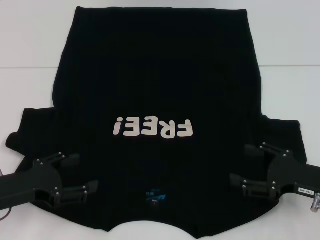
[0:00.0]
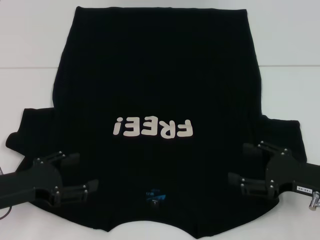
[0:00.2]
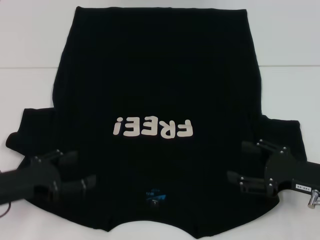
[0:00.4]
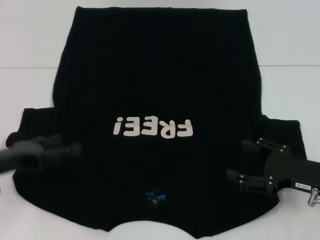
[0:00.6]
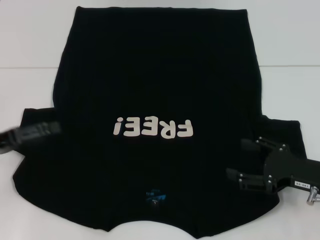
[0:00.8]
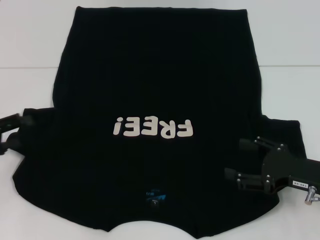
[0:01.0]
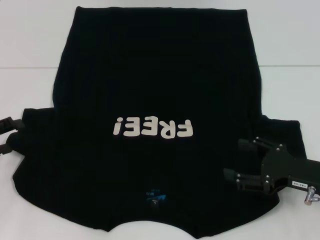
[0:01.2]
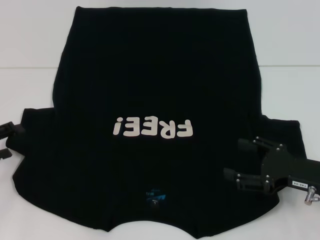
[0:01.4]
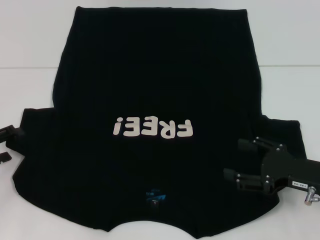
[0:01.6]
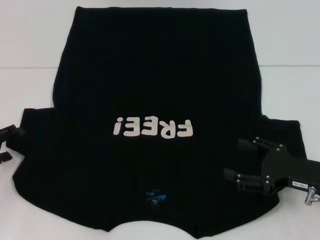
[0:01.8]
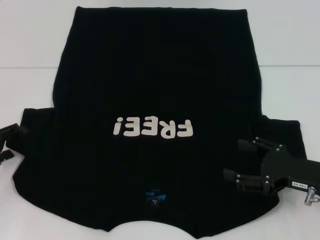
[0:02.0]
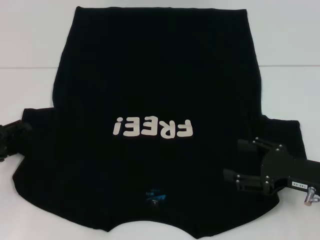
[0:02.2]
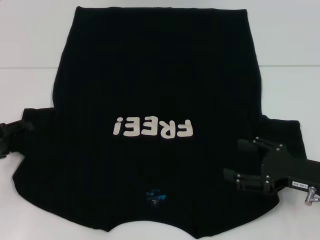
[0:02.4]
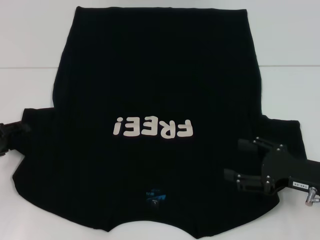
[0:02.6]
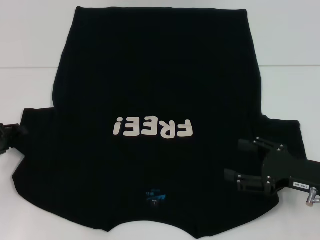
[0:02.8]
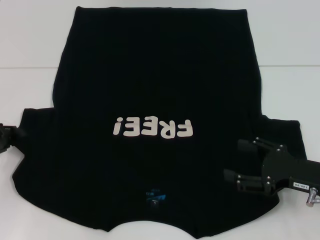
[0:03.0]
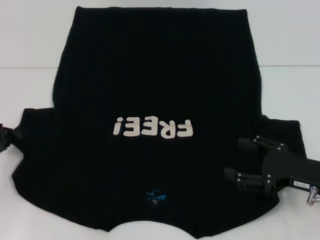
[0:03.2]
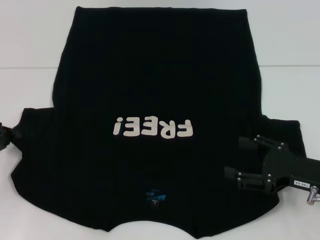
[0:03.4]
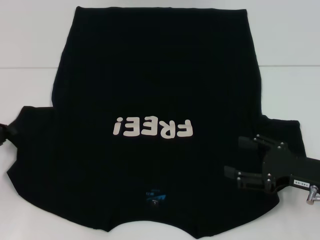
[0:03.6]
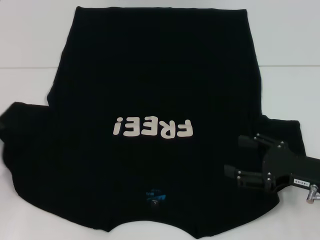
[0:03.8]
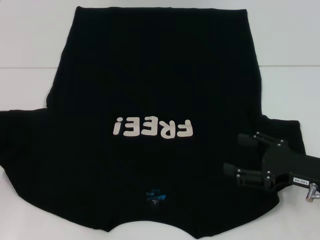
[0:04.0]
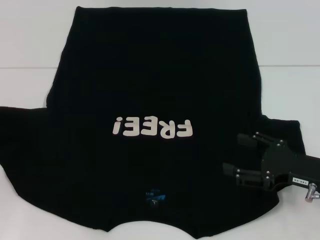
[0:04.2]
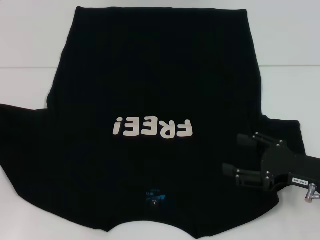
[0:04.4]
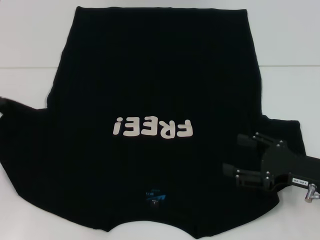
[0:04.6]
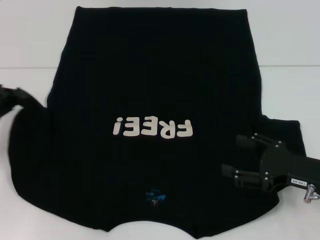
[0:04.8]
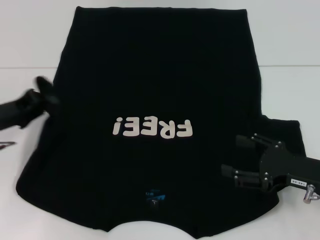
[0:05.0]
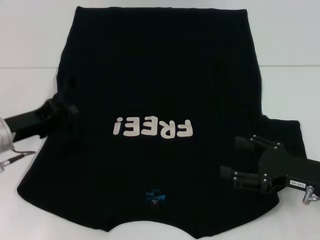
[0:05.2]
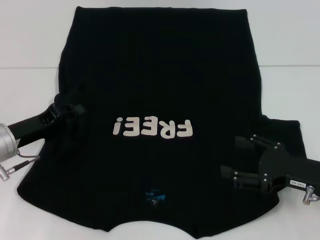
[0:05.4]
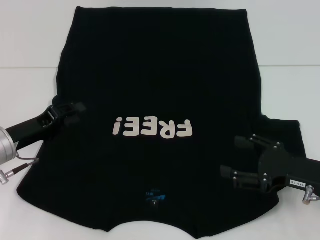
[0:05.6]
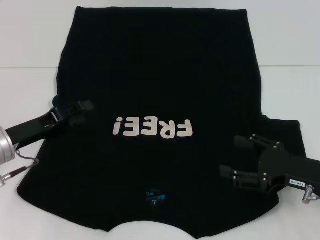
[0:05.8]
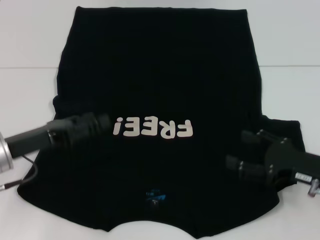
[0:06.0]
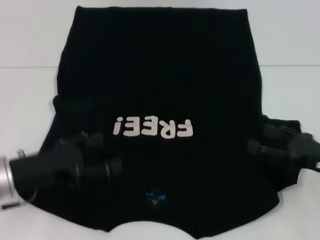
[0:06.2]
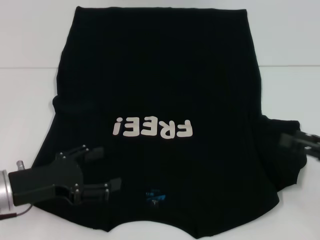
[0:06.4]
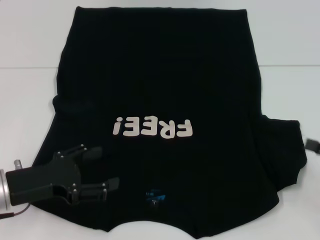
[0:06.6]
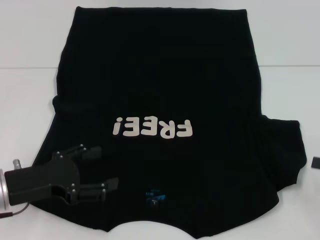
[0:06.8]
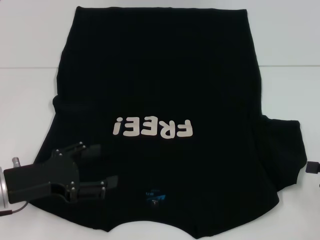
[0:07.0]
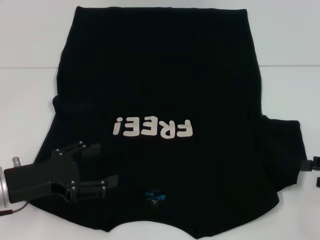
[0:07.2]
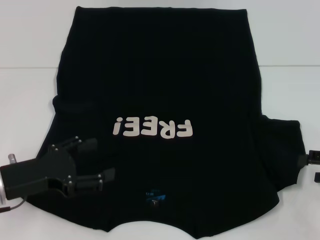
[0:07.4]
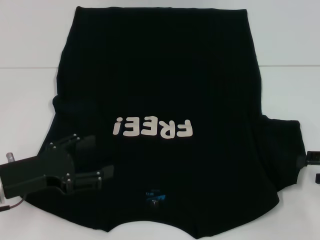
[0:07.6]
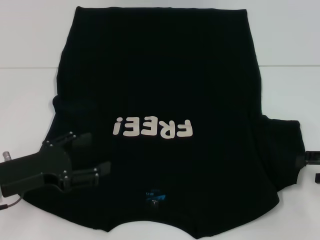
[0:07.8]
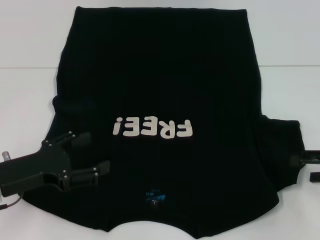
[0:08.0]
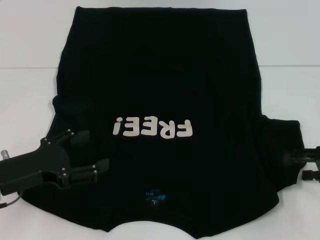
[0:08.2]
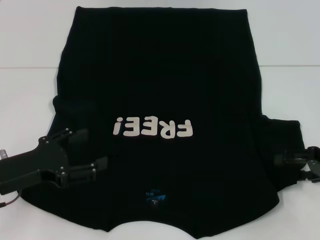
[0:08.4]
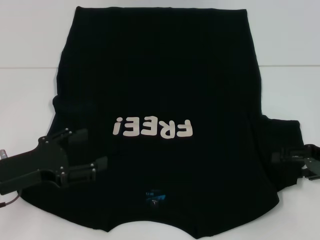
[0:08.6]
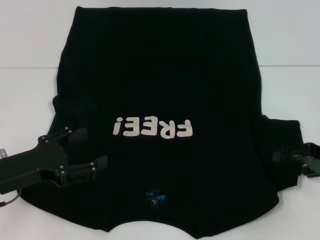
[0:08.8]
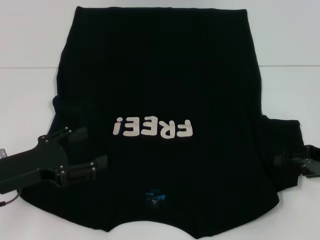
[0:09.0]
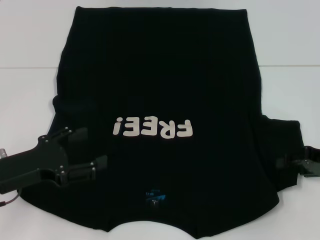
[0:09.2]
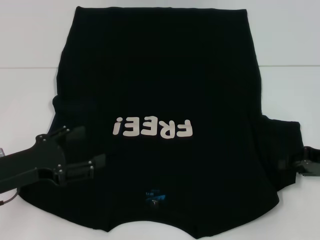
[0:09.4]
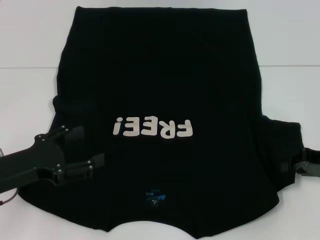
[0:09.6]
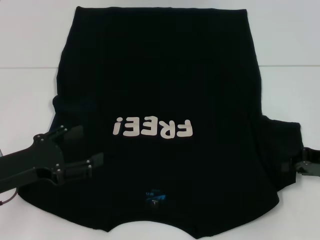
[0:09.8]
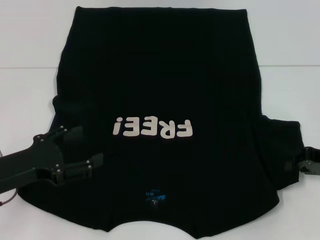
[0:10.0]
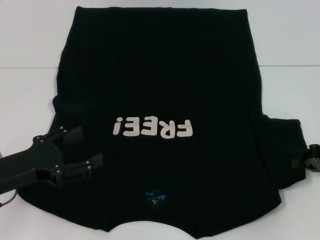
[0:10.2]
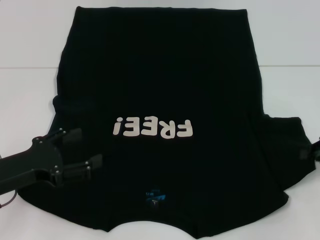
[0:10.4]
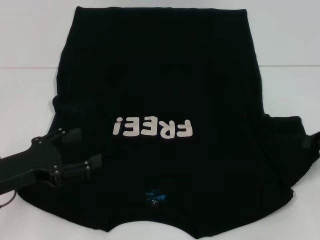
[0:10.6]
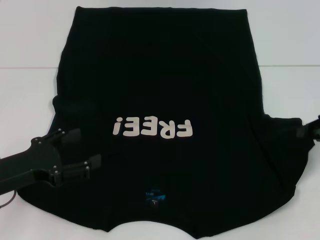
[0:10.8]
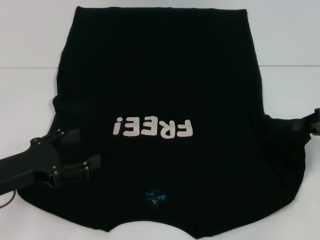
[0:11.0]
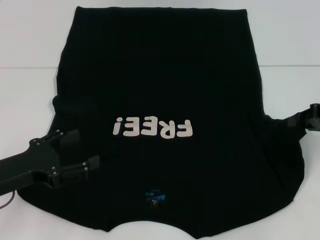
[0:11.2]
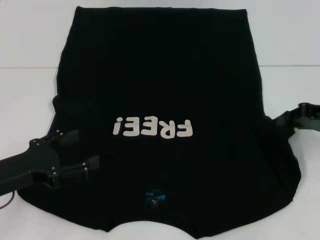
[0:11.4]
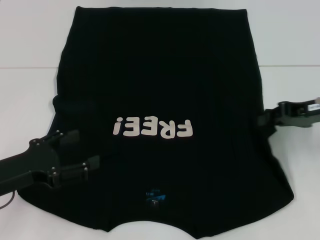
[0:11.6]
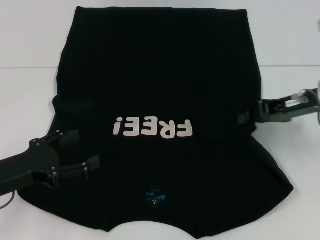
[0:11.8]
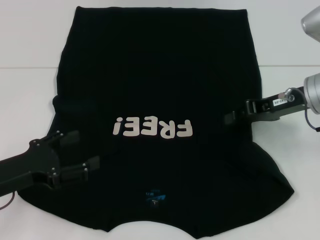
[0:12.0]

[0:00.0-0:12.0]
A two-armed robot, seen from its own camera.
Step, 0:00.0 to 0:05.4: Fold the bottom left sleeve with your left hand.
0:00.0 to 0:01.6: The left gripper heads to the left, covering approximately 10 cm.
0:03.0 to 0:04.4: The left gripper closes.
0:04.4 to 0:06.0: The left gripper travels to the right by approximately 10 cm, and opens.
0:06.0 to 0:07.6: The left gripper opens up. Meanwhile the right gripper moves to the right, some 10 cm.
0:07.6 to 0:09.0: There are only small adjustments of the grippers.
0:09.0 to 0:10.4: The right gripper closes.
0:10.4 to 0:12.0: The right gripper goes some 15 cm to the left, forward and upward.

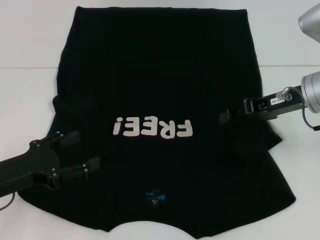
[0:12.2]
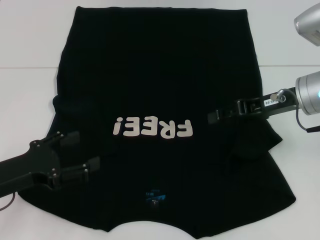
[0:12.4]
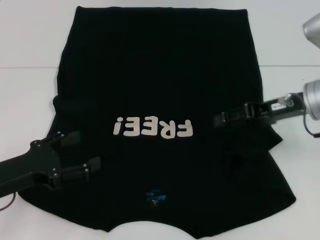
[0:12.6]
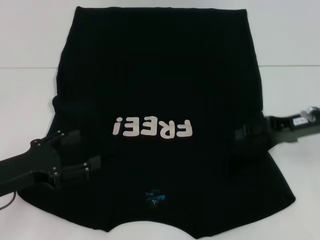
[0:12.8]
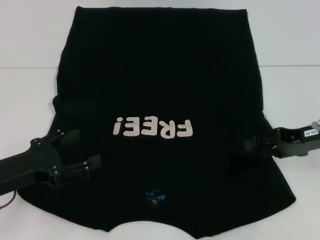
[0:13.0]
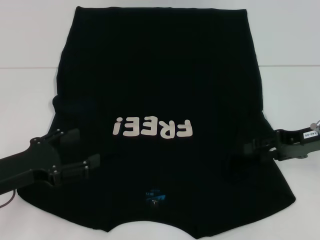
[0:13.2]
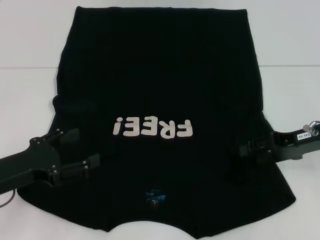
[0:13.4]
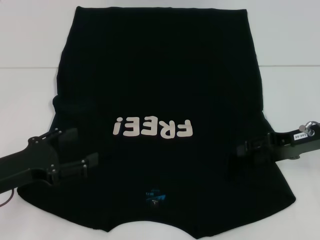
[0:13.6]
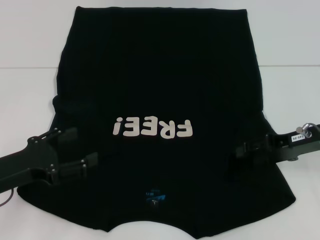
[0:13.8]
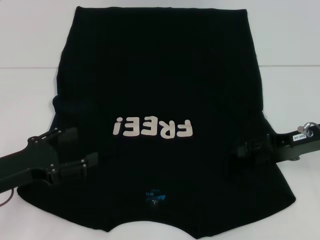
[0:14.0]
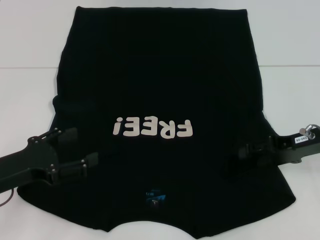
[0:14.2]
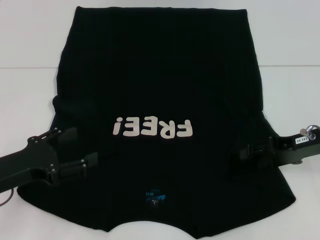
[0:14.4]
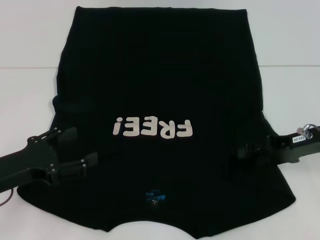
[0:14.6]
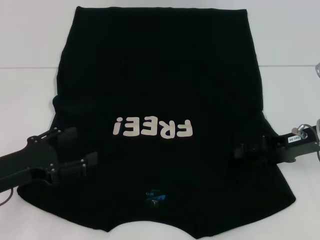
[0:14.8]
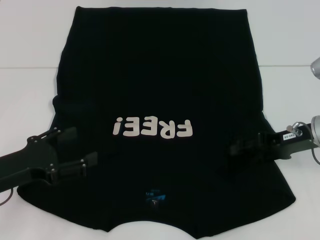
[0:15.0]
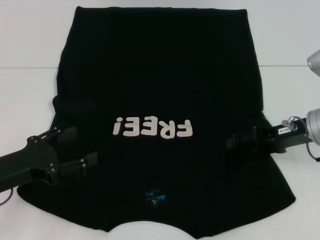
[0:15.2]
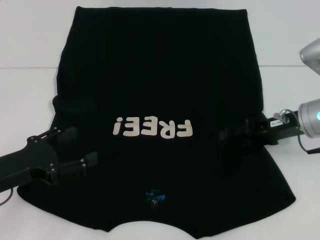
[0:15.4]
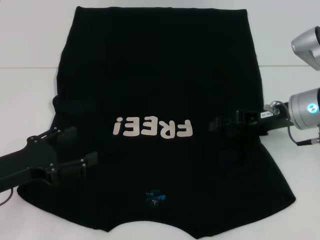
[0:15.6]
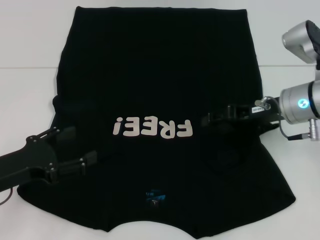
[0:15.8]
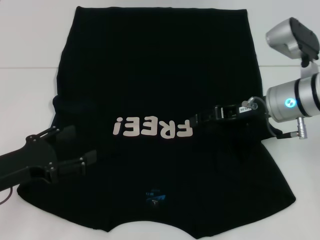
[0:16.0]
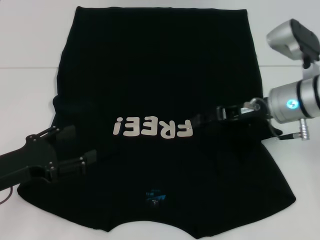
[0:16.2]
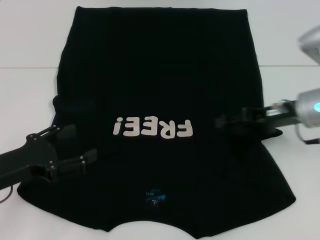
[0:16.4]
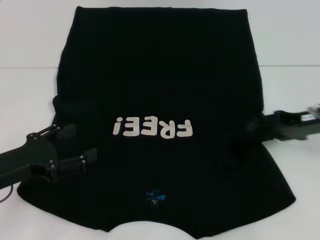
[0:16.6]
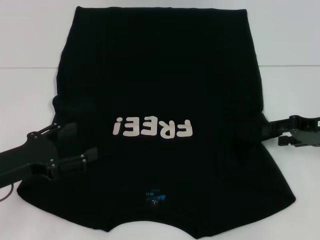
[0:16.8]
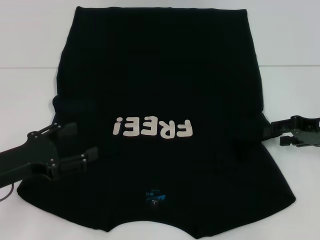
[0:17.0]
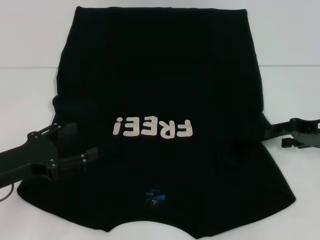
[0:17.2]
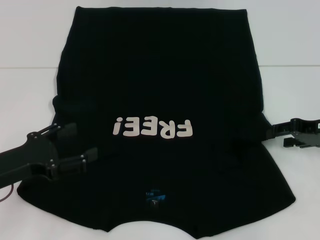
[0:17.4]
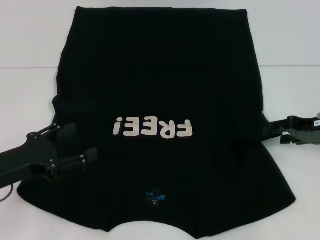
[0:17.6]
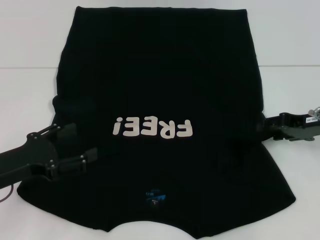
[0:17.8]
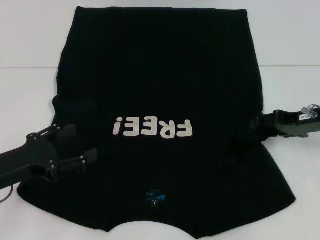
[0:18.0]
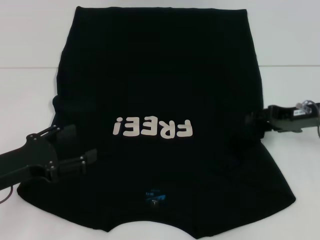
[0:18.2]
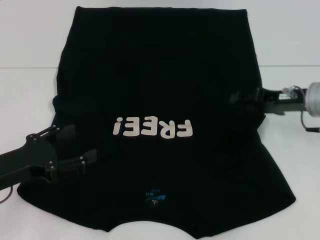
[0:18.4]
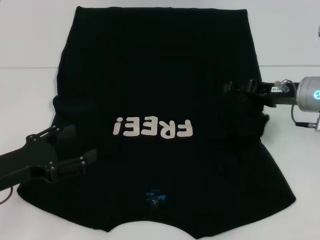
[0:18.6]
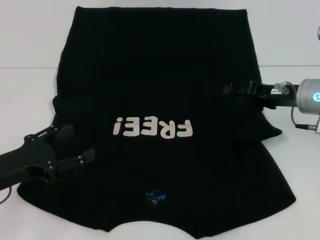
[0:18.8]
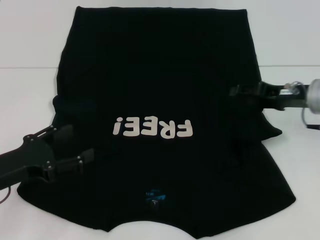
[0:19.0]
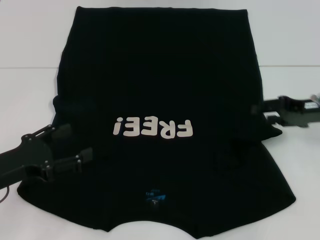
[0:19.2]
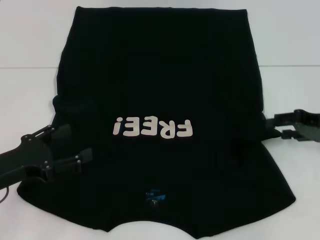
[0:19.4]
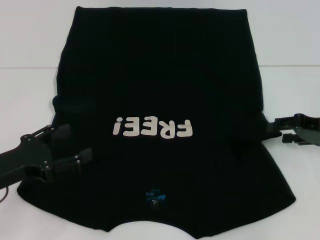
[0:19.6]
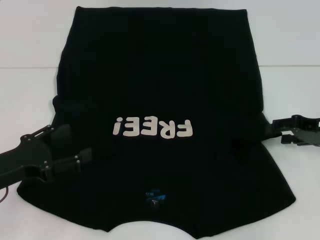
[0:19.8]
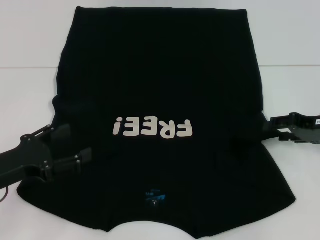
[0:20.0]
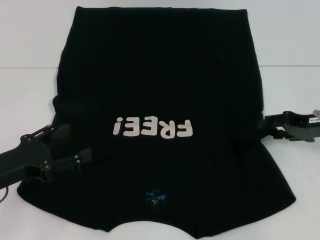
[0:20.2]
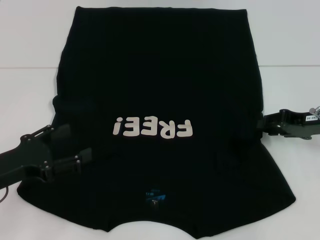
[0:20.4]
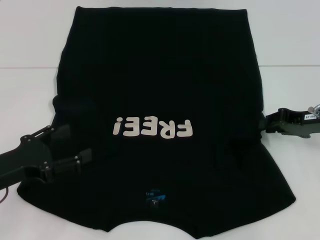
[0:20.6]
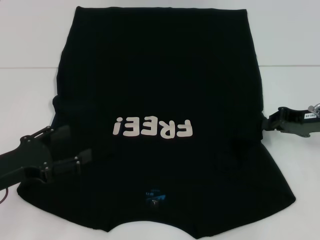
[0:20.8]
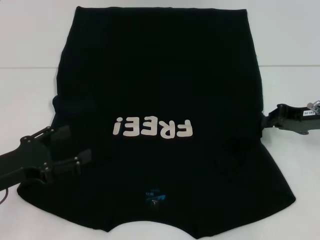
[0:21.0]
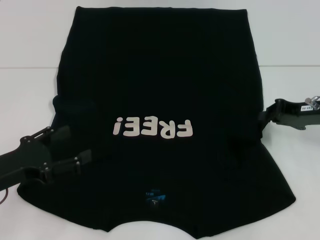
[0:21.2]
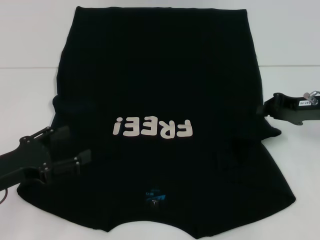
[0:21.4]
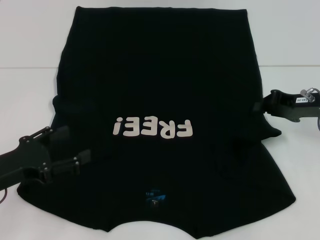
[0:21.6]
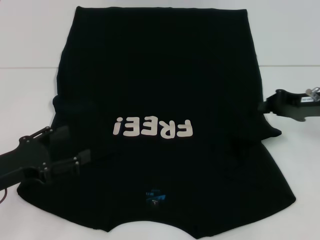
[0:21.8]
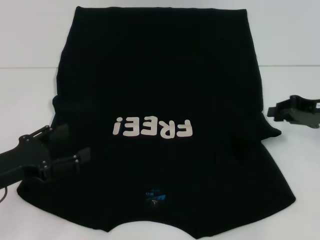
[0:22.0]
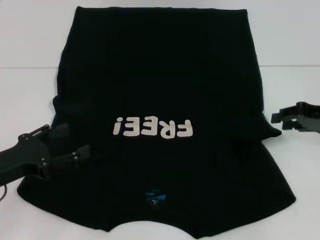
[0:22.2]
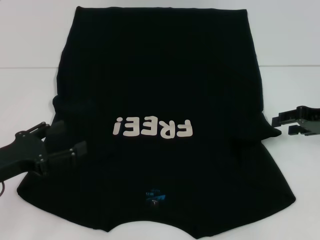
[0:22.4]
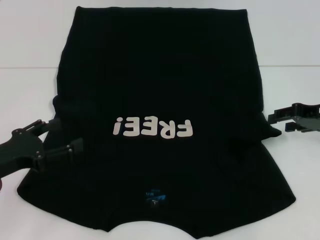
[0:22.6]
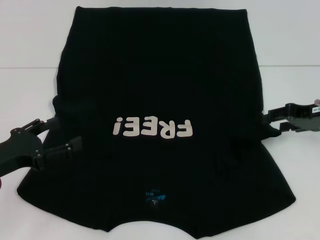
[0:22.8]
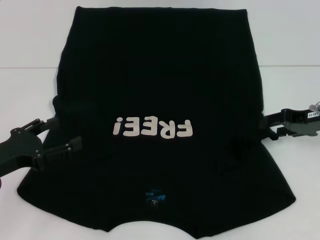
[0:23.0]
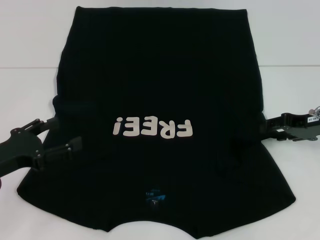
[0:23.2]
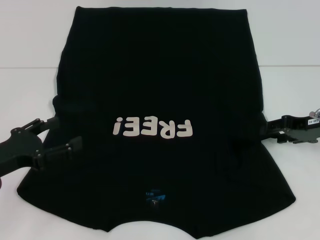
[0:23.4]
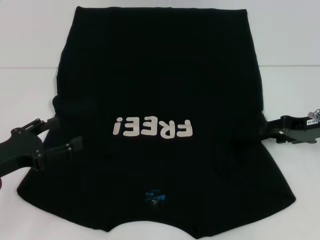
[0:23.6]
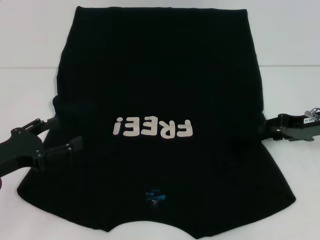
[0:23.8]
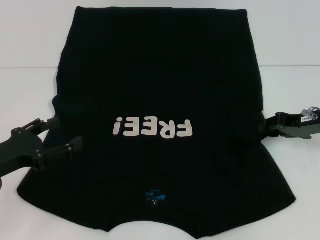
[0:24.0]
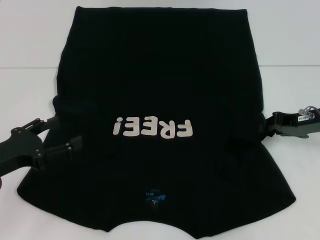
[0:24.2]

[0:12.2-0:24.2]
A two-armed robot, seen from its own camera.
0:12.2 to 0:13.8: The right gripper goes about 5 cm downward, and opens.
0:13.8 to 0:15.2: The grippers stay close to where they were, moving slightly.
0:16.6 to 0:19.8: The grippers make only small movements.
0:19.8 to 0:21.2: The right gripper closes its fingers.
0:21.2 to 0:22.6: The right gripper opens up.
0:22.6 to 0:24.2: The grippers make only small movements.
